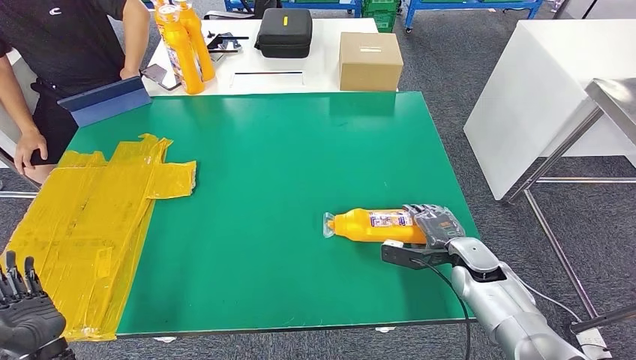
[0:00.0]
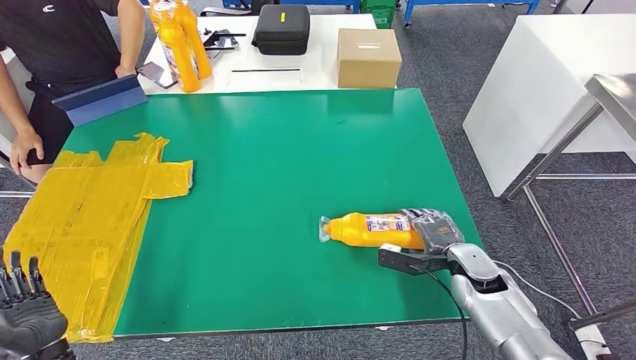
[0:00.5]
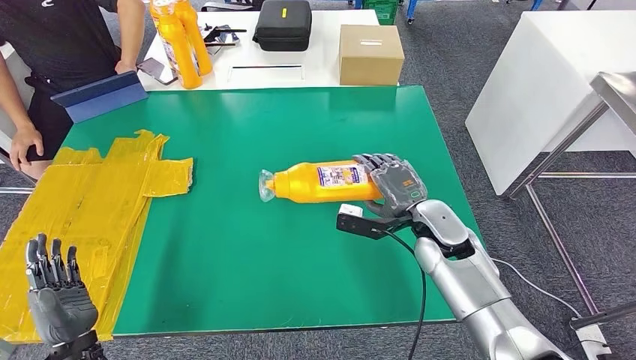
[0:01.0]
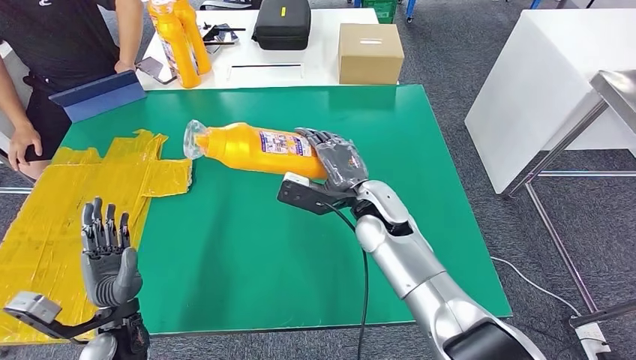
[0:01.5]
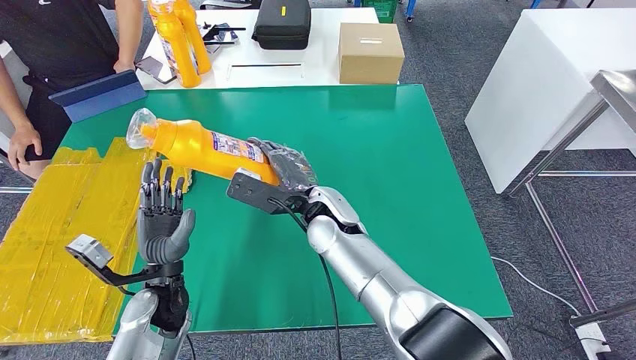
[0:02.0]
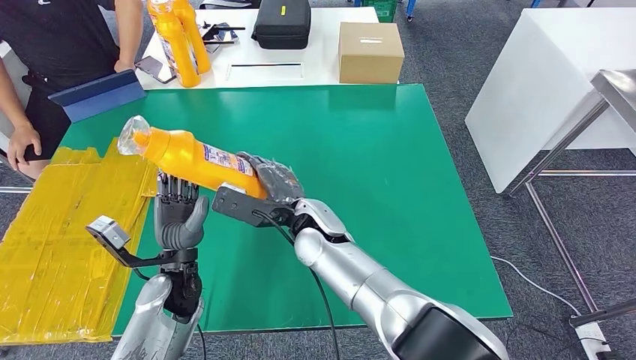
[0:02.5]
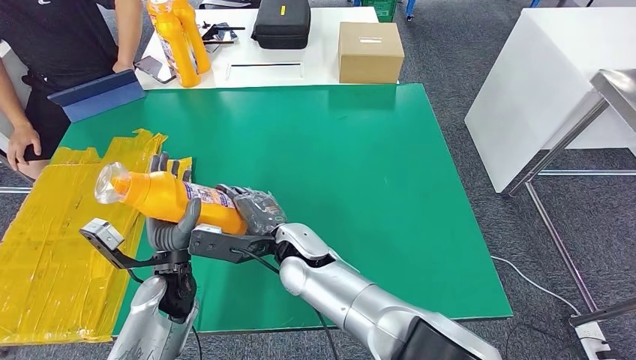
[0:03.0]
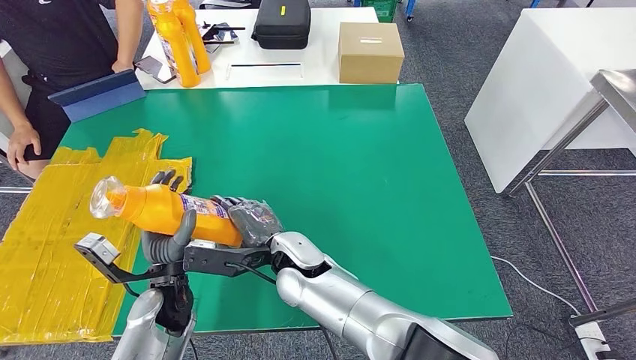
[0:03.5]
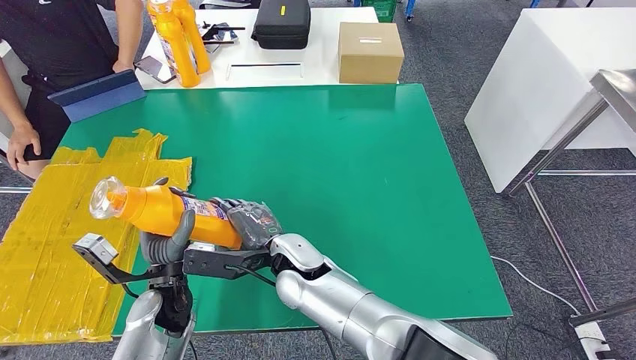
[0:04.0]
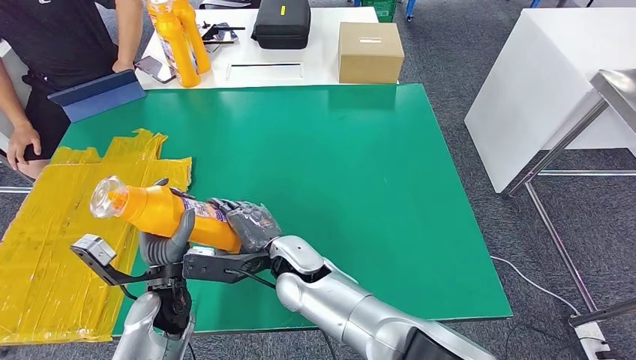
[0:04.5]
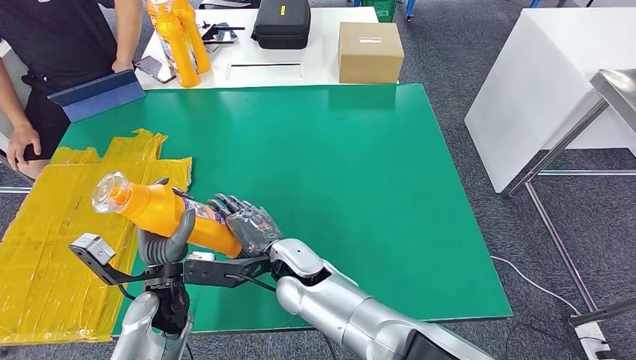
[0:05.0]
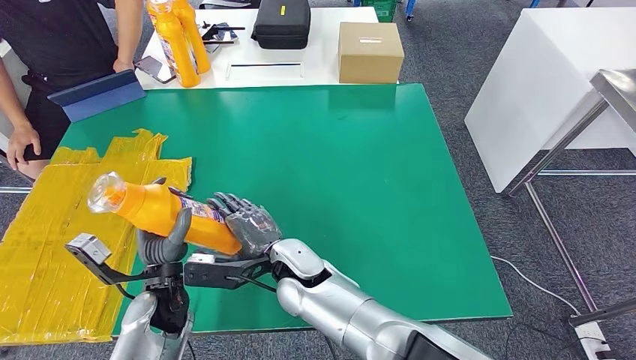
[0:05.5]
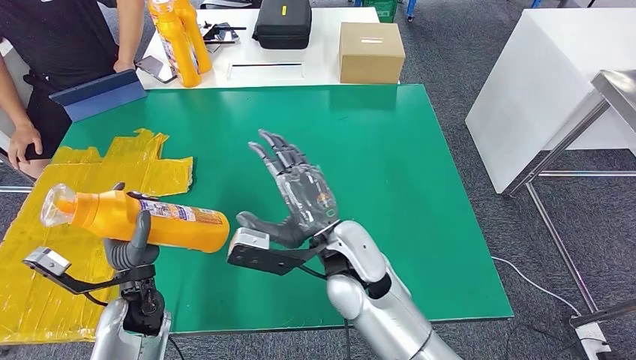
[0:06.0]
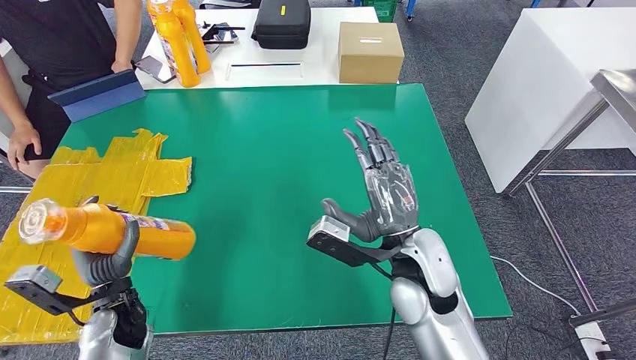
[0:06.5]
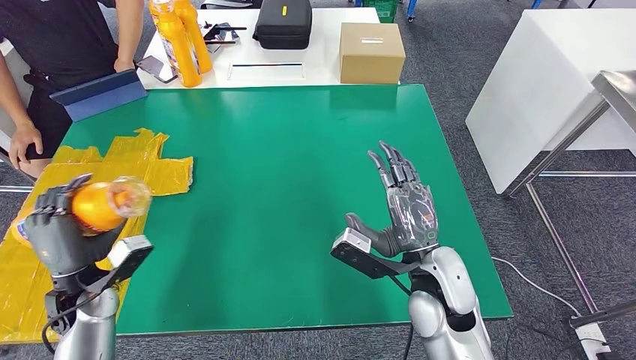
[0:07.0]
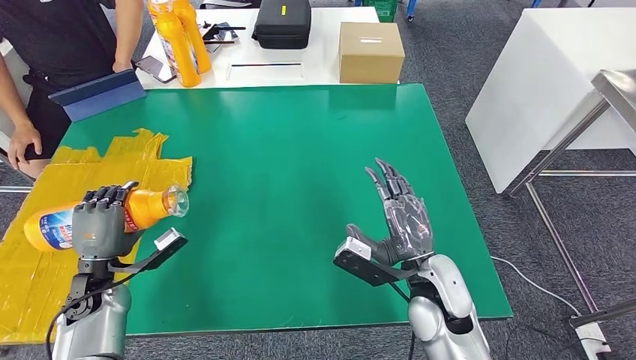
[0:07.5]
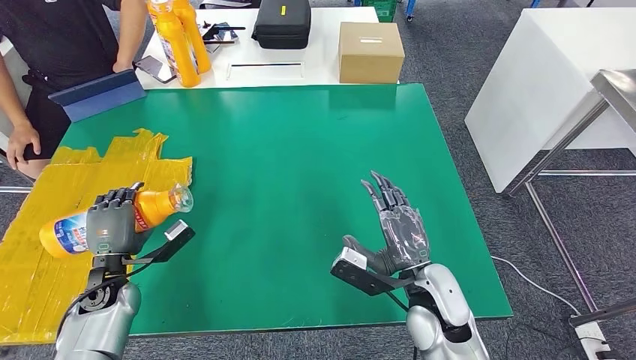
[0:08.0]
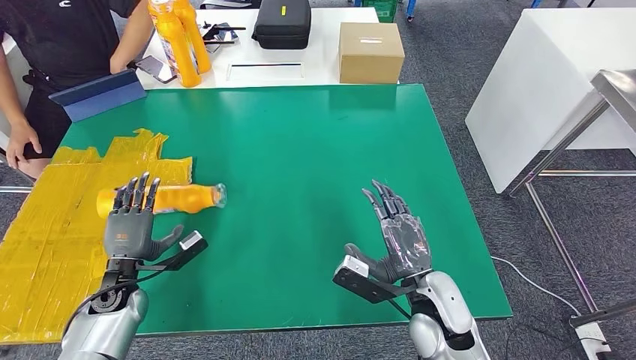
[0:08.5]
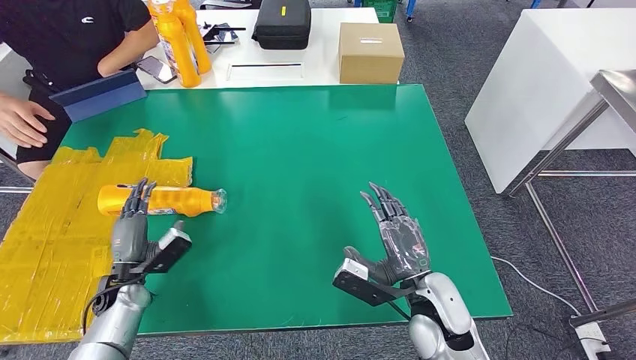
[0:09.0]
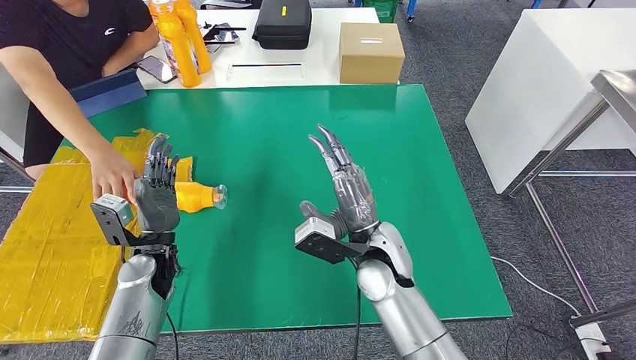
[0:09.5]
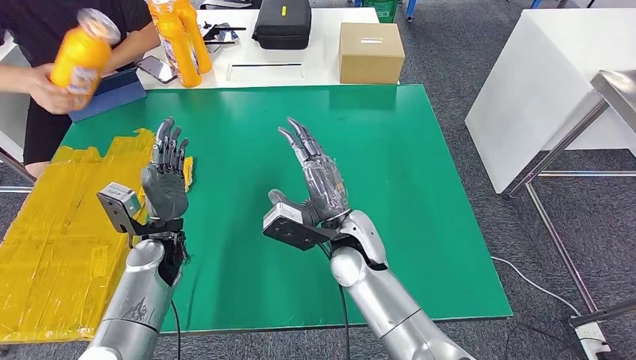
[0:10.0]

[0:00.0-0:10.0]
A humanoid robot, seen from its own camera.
Step, 0:00.0 to 0:02.0: Pick up the fast-moving consumer goods bottle from the table.
Step, 0:02.5 to 0:10.0: Flip the fast-moving consumer goods bottle to the front side.
0:02.0 to 0:04.0: The right hand is displaced backward and to the left by about 10 cm.
0:04.0 to 0:06.0: The right hand goes some 5 cm to the right.
0:06.0 to 0:08.0: The right hand is displaced to the right by roughly 20 cm. Meanwhile the left hand moves to the left, approximately 10 cm.

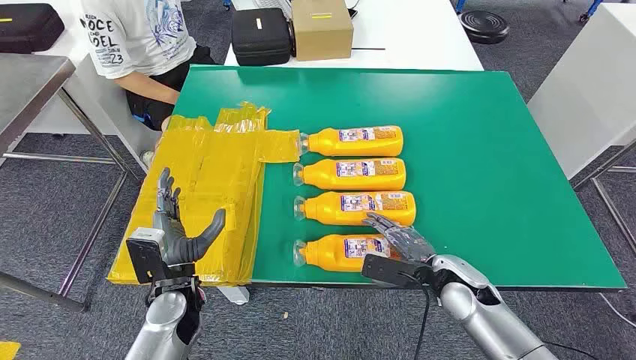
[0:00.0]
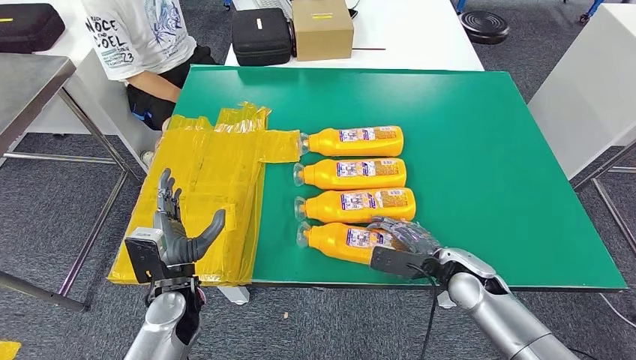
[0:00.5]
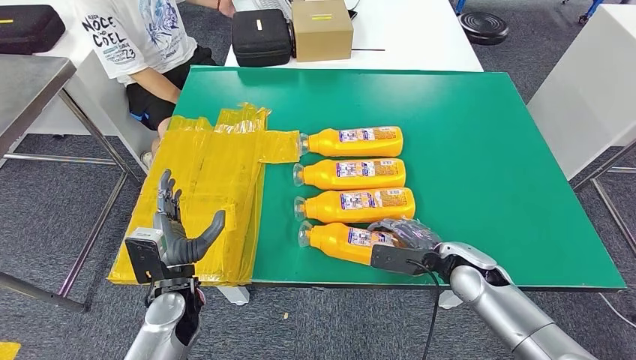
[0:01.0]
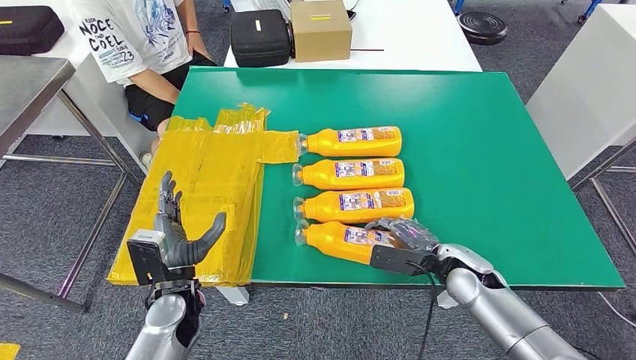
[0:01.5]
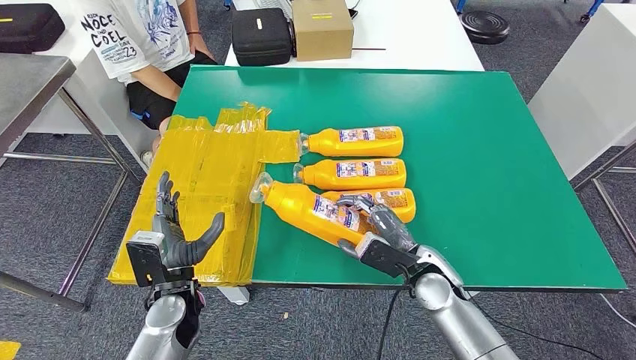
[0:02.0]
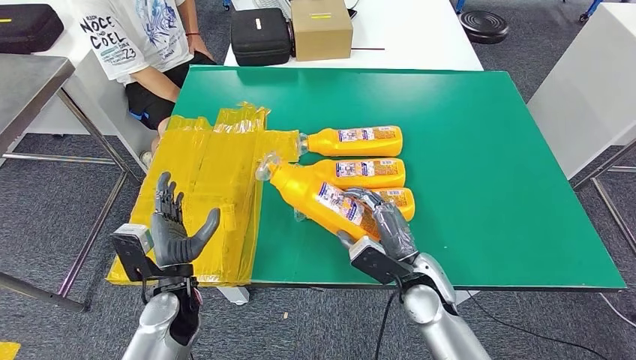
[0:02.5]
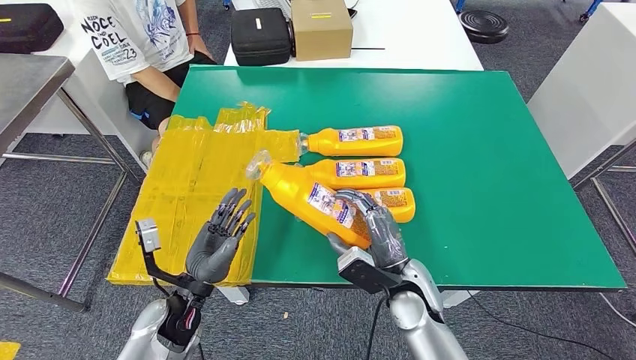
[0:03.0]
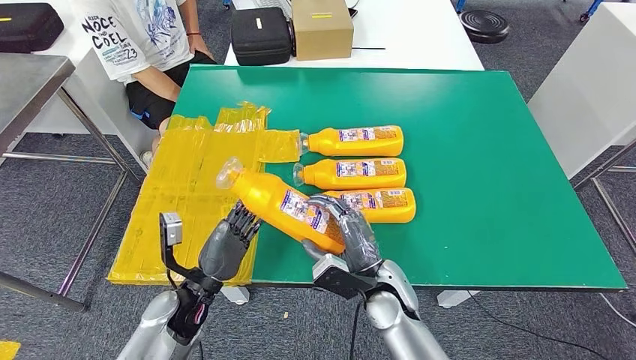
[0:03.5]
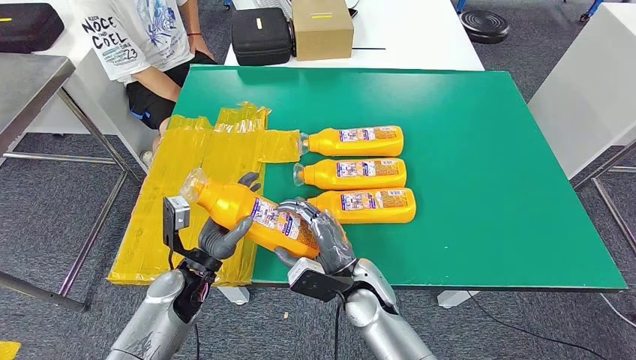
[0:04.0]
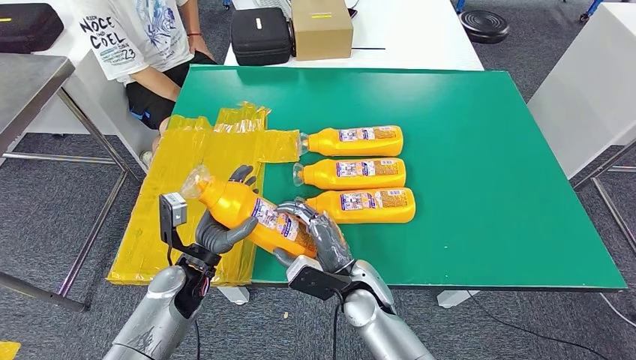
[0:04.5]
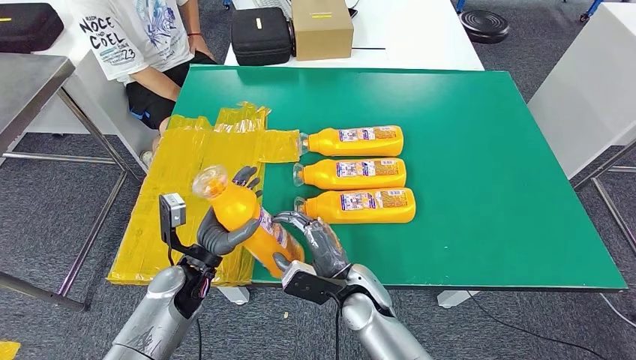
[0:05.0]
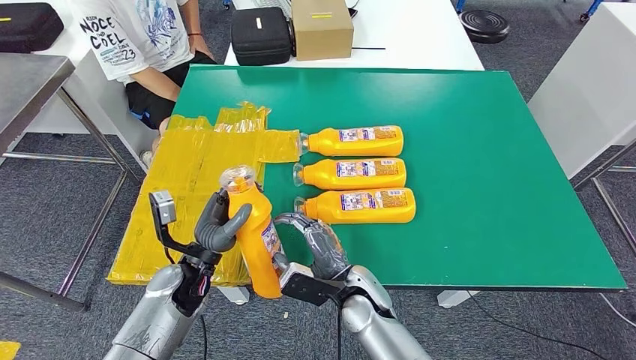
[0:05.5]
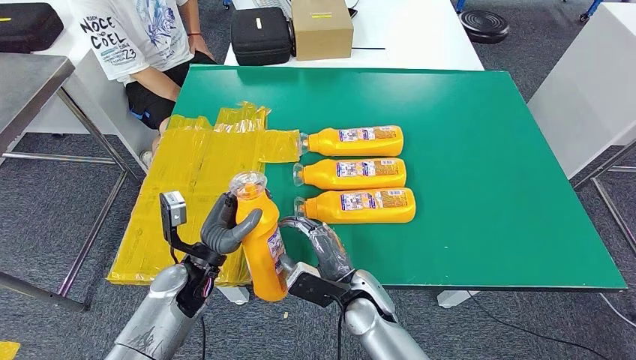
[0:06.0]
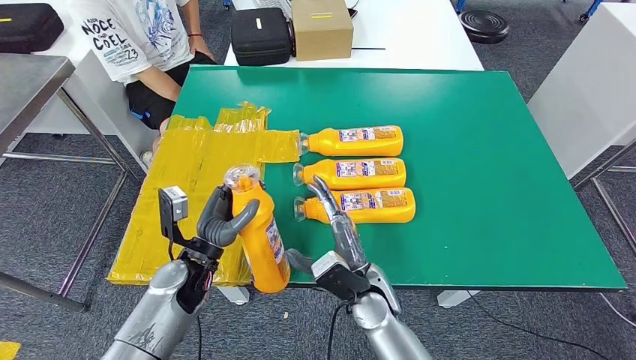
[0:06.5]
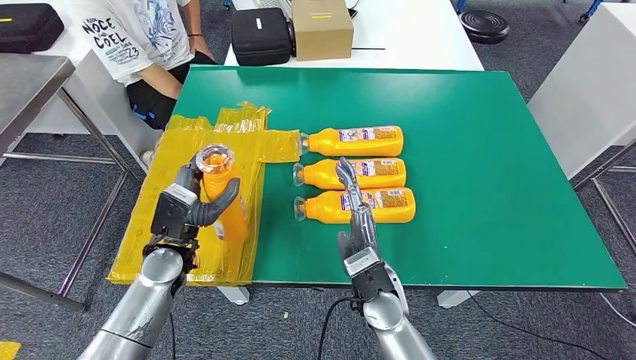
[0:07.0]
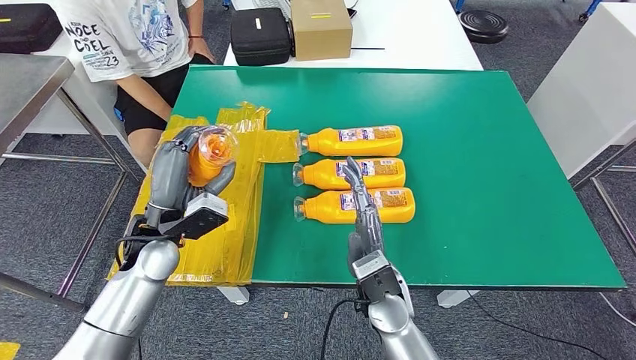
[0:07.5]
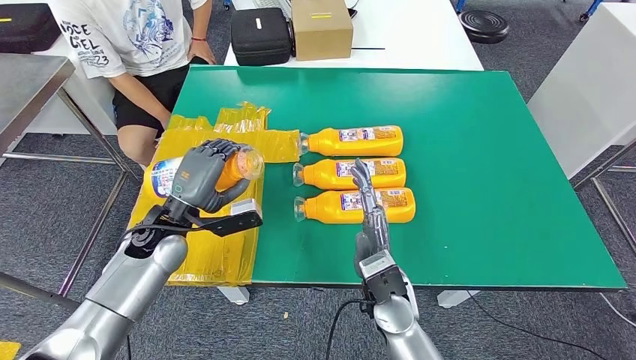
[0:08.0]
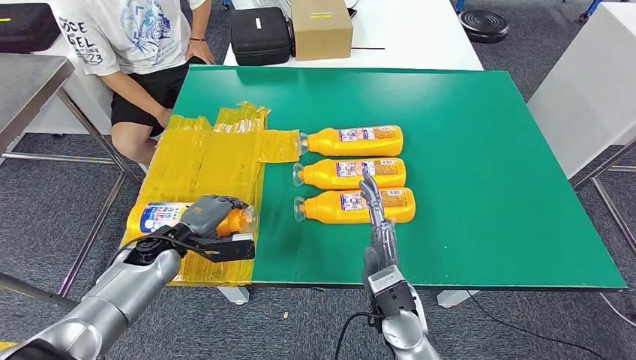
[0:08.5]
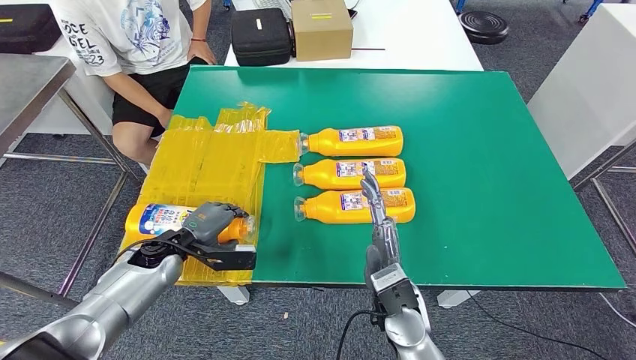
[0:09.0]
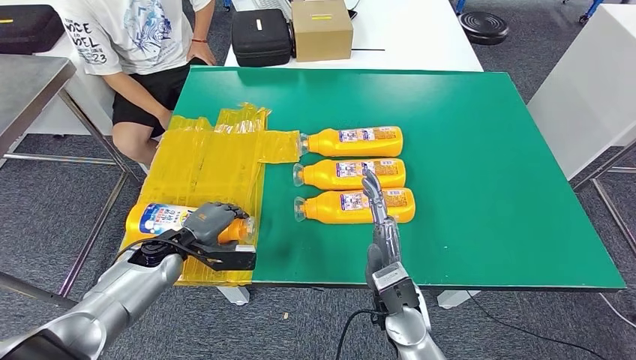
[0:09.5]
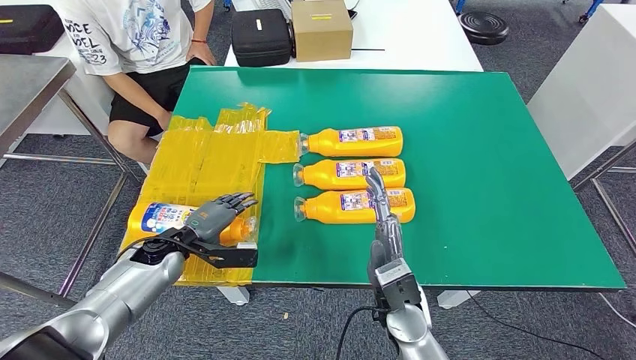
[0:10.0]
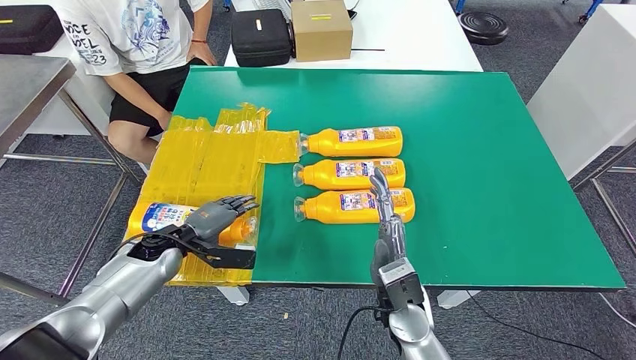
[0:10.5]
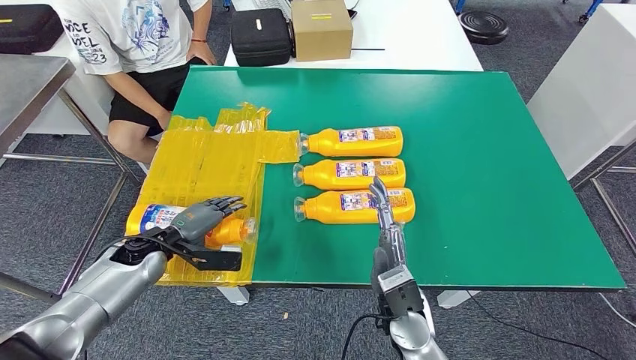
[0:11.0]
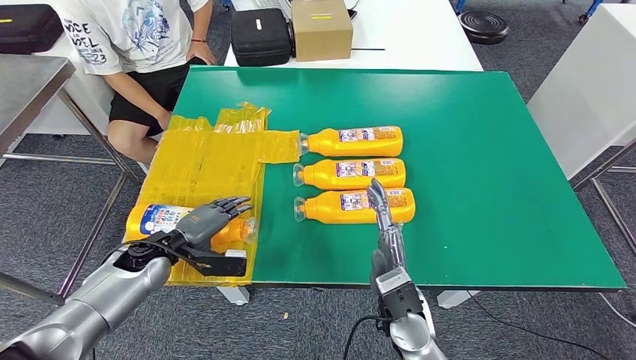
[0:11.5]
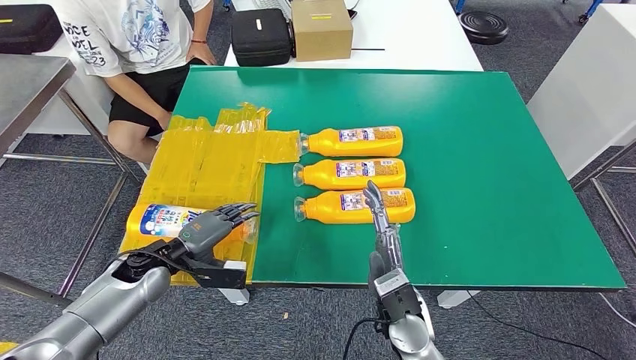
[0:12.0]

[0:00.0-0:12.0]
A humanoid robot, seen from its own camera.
Step, 0:00.0 to 0:03.5: Take the fast-moving consumer goods bottle from the table.
Step, 0:04.5 to 0:11.5: Flip the fast-moving consumer goods bottle to the front side.
0:02.0 to 0:04.0: The right hand travels to the left by some 10 cm.
0:04.0 to 0:06.0: The hands make only small movements.
0:08.0 to 0:10.0: The left hand shifts roughly 10 cm downward.
0:10.0 to 0:12.0: The hands make only small movements.
